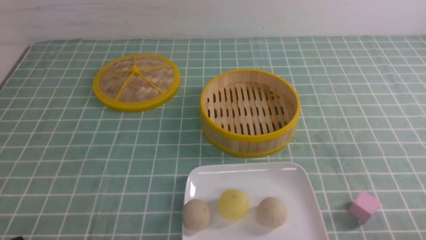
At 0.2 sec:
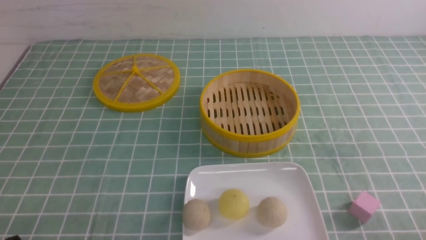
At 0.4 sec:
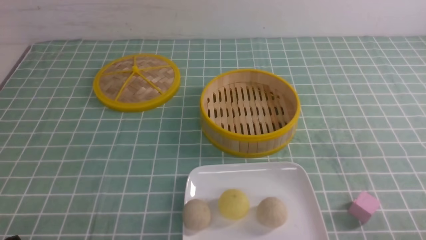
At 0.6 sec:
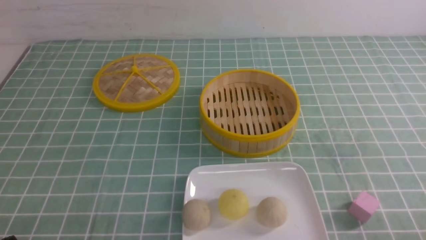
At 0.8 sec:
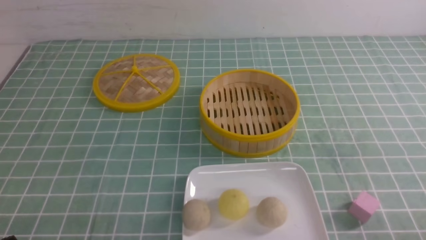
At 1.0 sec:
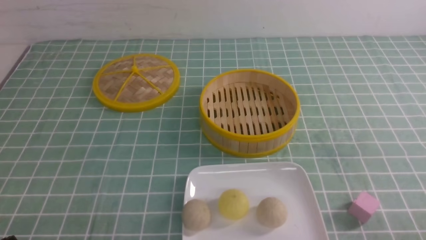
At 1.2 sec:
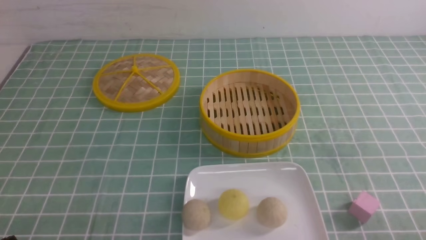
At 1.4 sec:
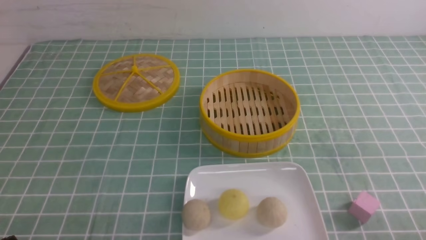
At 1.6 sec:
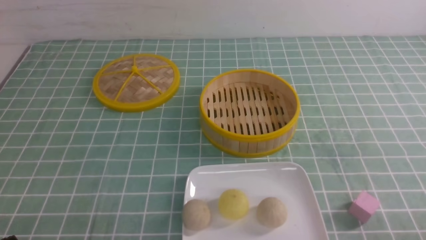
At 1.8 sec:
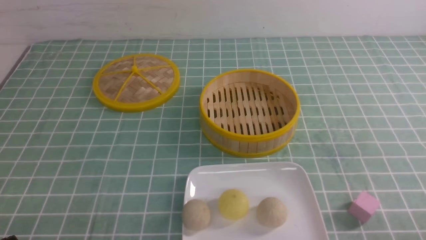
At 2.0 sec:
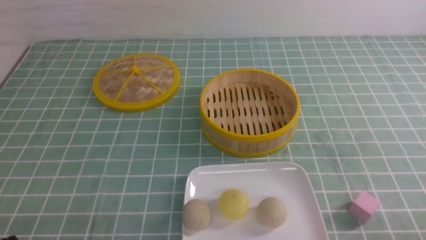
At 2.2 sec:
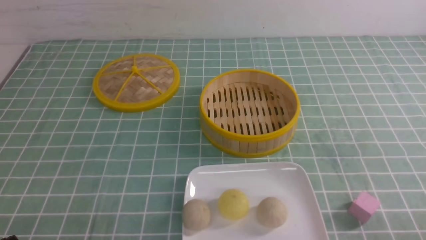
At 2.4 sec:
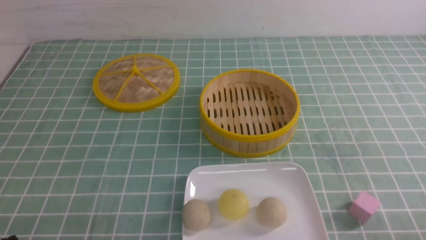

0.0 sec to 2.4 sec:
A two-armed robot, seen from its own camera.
1.2 sec to 2.4 sec: Neither gripper changes place.
